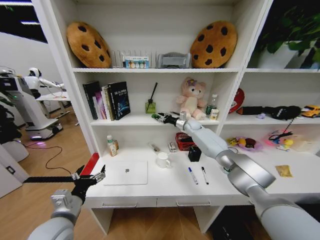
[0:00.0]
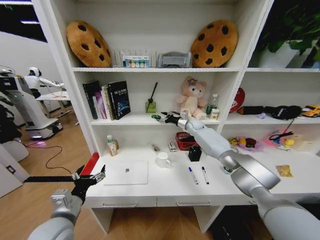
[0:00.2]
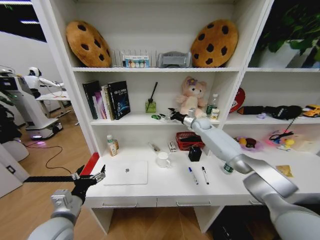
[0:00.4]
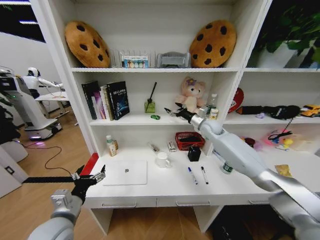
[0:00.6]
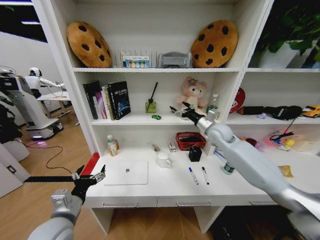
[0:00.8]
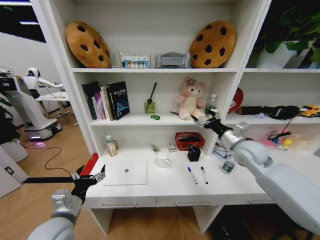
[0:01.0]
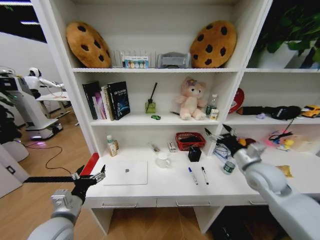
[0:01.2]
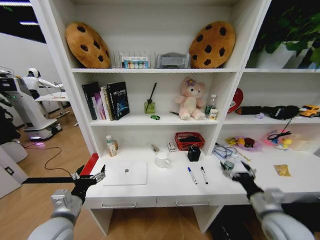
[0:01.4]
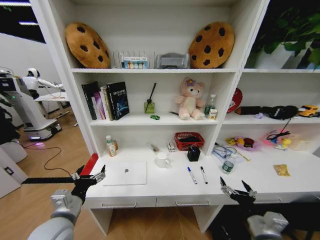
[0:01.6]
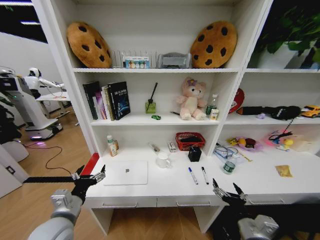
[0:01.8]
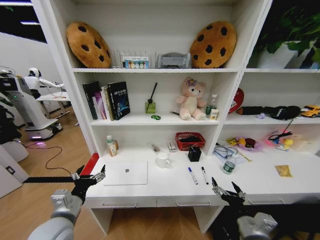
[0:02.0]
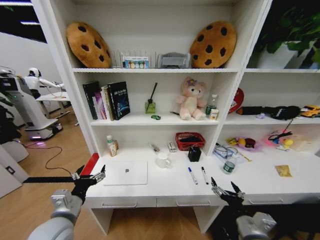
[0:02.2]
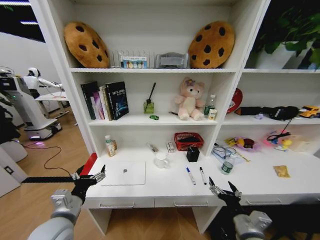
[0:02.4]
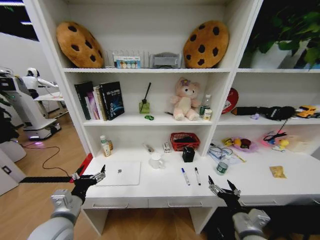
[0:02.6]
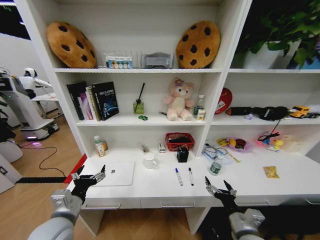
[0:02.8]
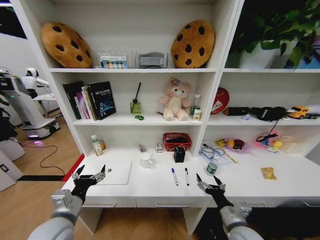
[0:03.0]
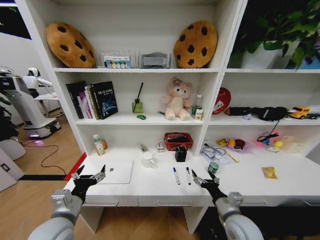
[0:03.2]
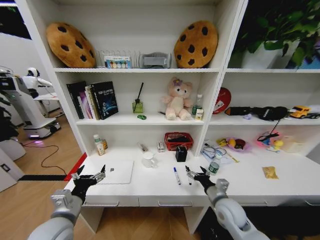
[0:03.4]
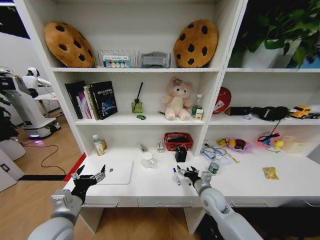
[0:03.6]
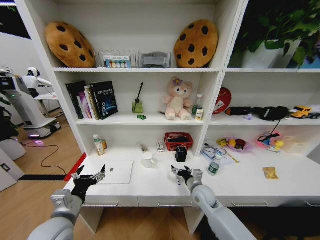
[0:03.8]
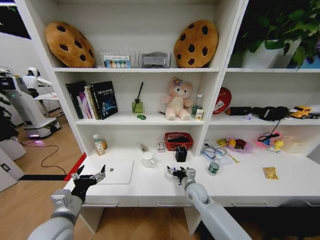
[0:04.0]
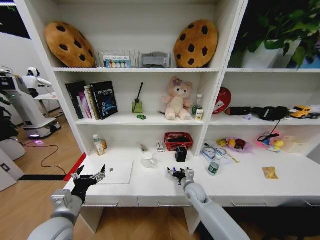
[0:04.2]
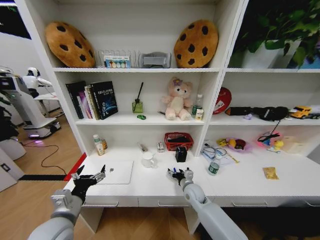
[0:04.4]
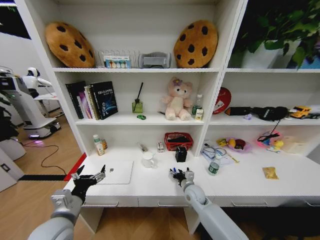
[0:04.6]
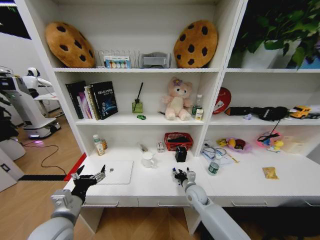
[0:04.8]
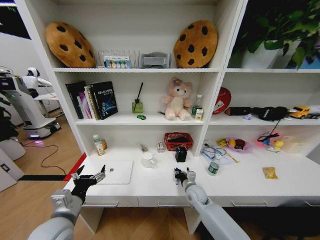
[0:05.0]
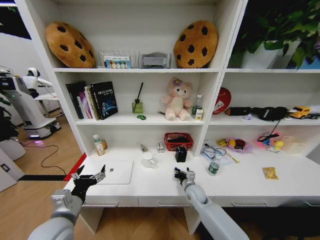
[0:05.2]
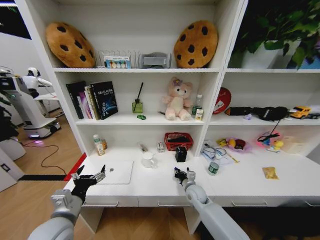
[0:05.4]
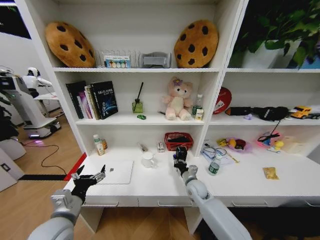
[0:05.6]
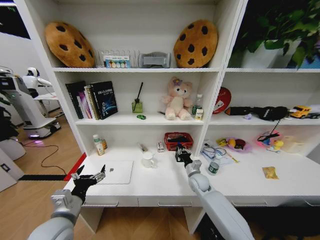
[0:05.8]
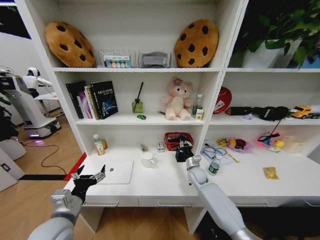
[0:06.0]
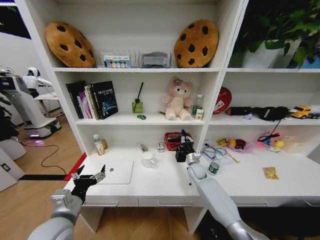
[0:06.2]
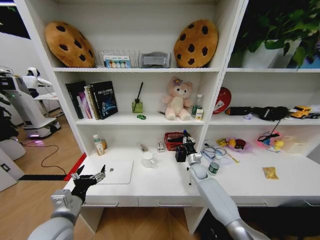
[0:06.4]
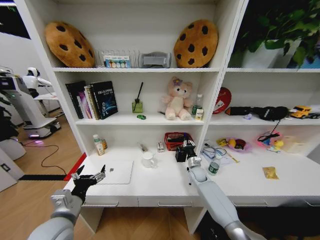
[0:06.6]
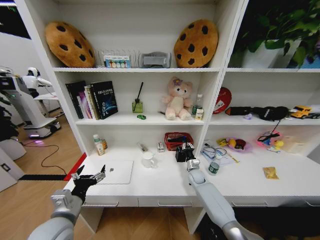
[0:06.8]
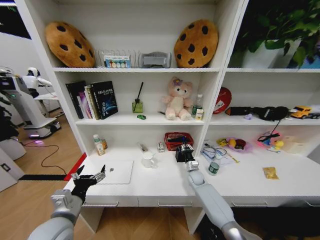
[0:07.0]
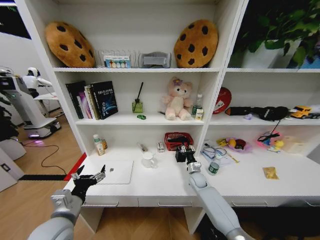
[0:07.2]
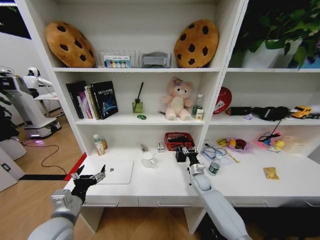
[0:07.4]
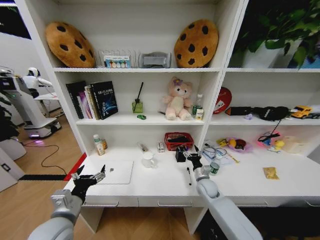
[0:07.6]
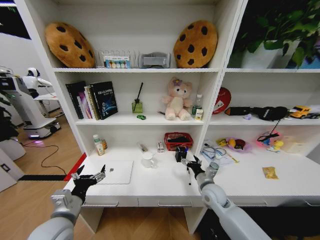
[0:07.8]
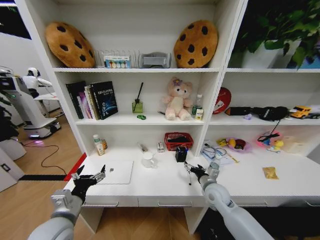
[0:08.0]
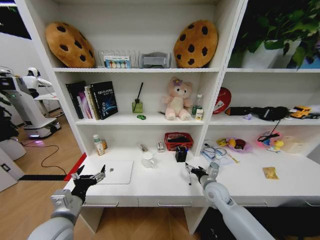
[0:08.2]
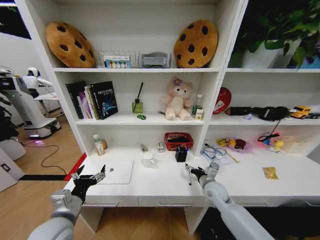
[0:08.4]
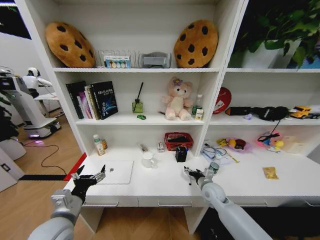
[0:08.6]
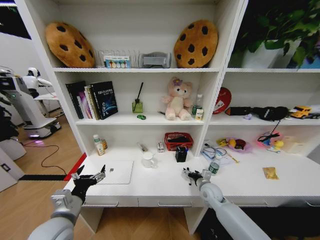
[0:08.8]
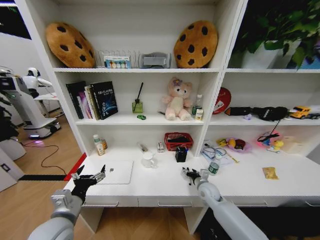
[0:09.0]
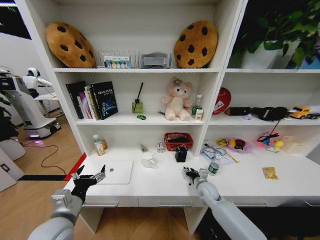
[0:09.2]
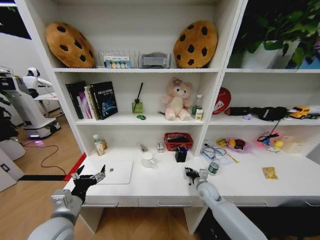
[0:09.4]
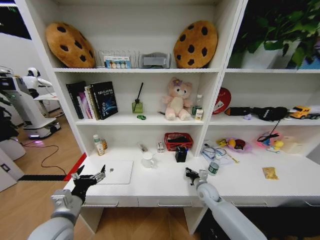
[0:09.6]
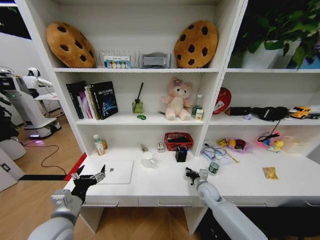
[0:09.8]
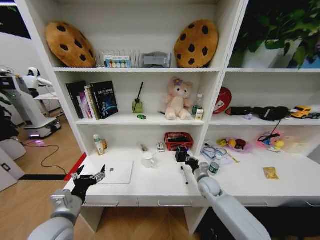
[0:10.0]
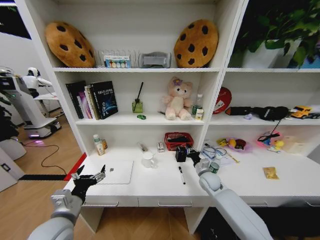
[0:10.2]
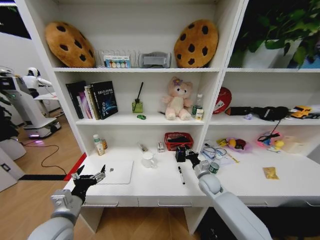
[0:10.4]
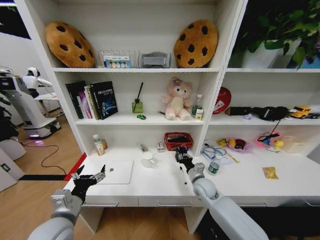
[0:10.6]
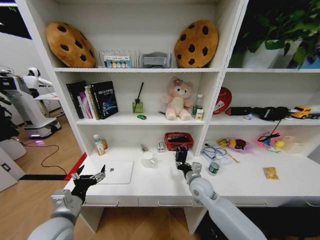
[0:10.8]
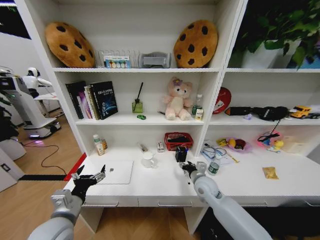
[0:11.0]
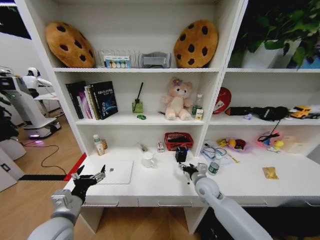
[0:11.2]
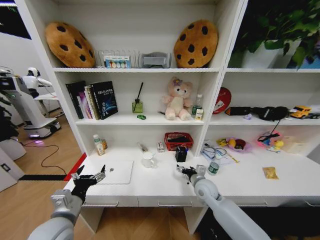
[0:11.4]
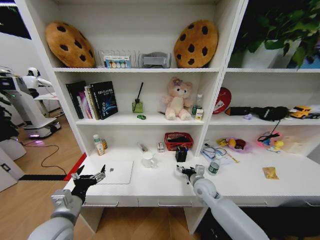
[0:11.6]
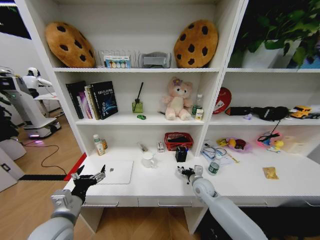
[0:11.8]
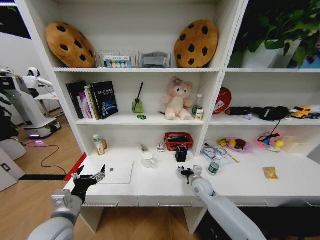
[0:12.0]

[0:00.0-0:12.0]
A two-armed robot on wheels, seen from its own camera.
Task of the whole recording: Organize the objects on the table.
0:00.0 to 0:01.6: The right gripper travels backward by roughly 50 cm, and opens up.
0:01.6 to 0:03.0: The right gripper travels to the left by roughly 5 cm.
0:03.0 to 0:04.4: The right gripper travels forward and to the left by approximately 20 cm.
0:04.4 to 0:06.0: The right gripper goes approximately 10 cm forward, and closes its fingers.
0:06.0 to 0:07.6: The right gripper heads backward, covering roughly 5 cm, and opens up.
0:09.0 to 0:10.4: The right gripper closes.
0:10.4 to 0:12.0: The right gripper opens.

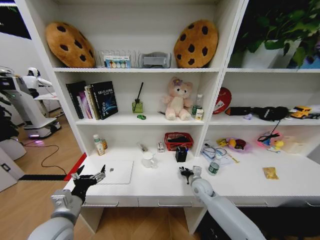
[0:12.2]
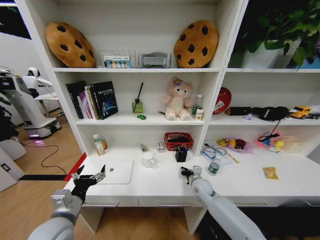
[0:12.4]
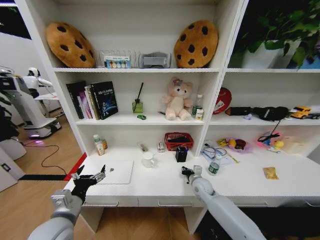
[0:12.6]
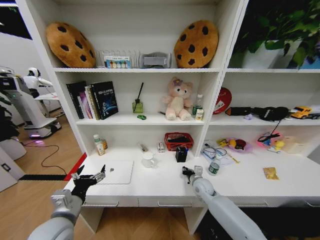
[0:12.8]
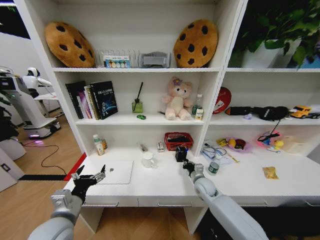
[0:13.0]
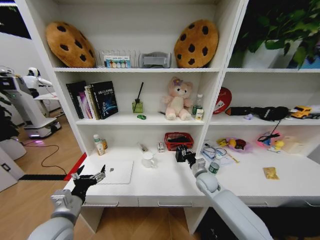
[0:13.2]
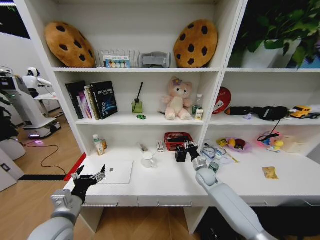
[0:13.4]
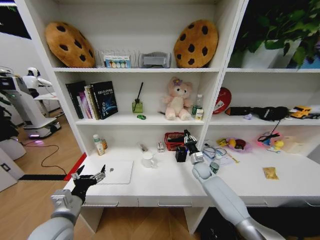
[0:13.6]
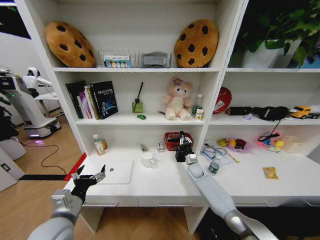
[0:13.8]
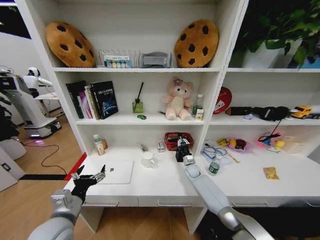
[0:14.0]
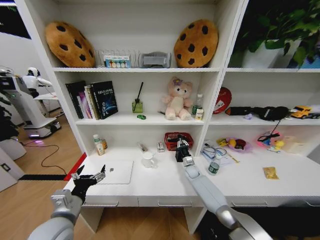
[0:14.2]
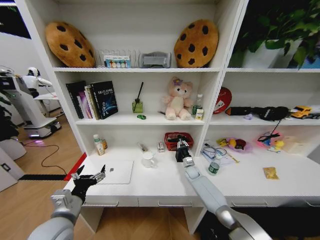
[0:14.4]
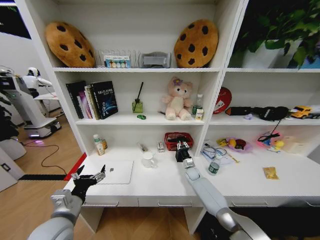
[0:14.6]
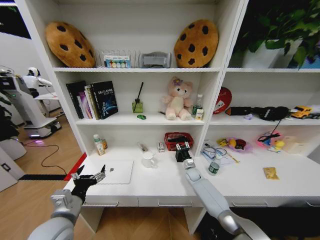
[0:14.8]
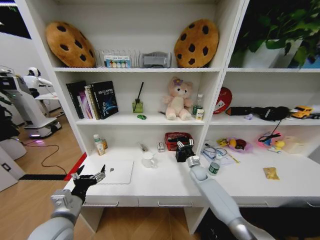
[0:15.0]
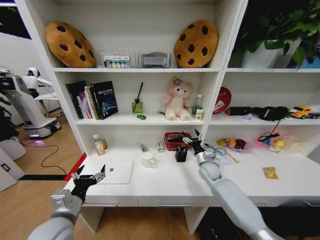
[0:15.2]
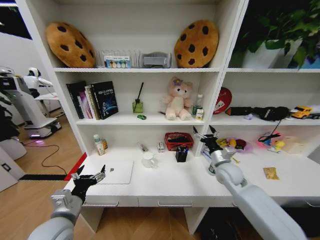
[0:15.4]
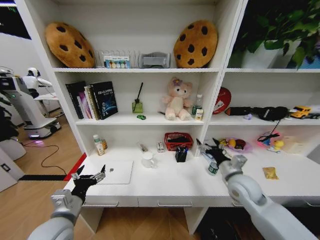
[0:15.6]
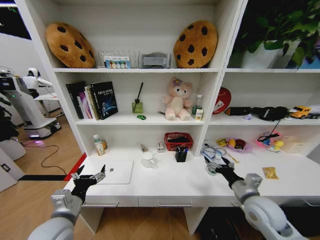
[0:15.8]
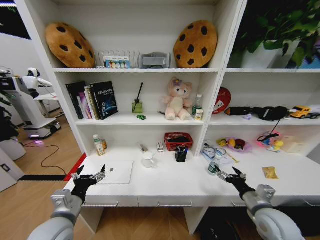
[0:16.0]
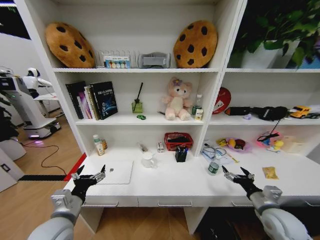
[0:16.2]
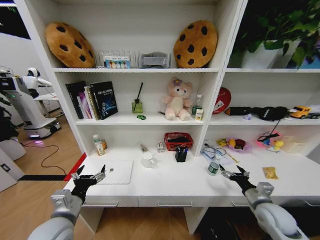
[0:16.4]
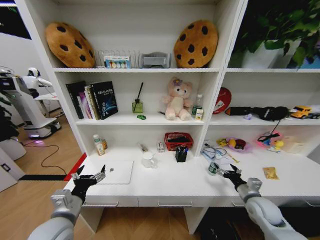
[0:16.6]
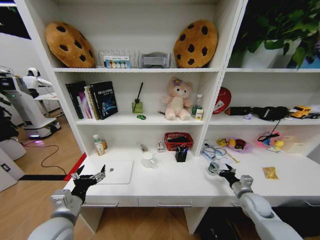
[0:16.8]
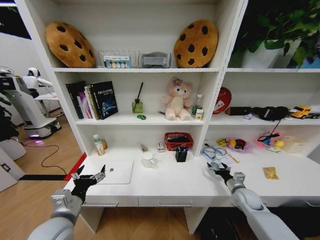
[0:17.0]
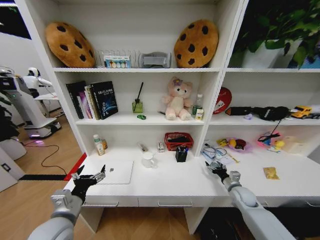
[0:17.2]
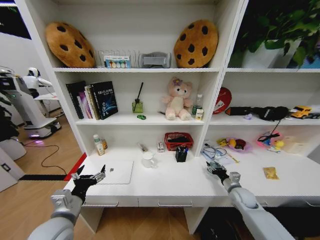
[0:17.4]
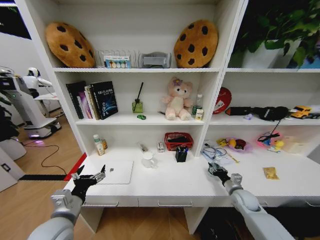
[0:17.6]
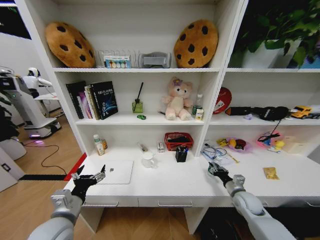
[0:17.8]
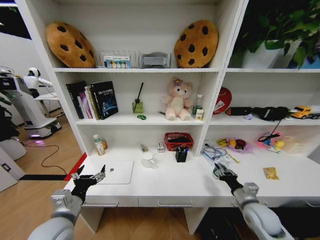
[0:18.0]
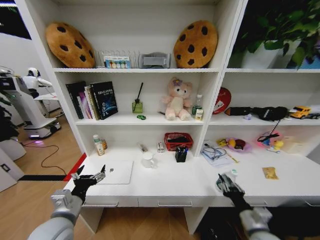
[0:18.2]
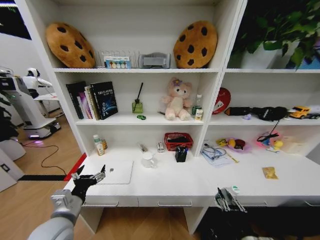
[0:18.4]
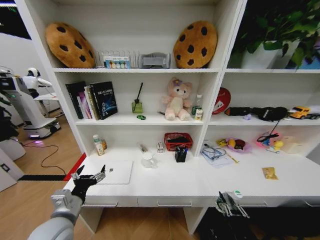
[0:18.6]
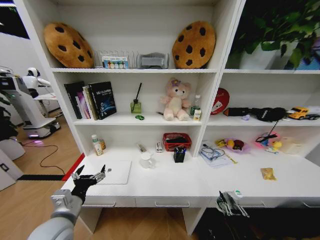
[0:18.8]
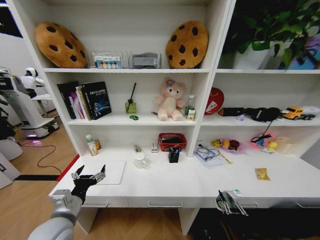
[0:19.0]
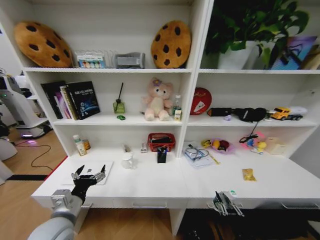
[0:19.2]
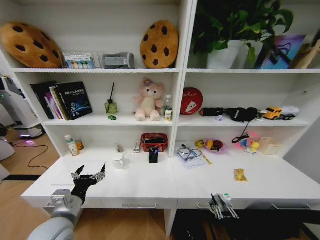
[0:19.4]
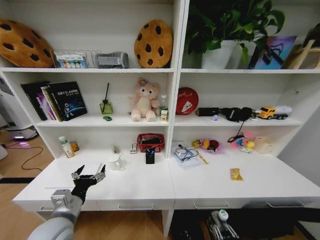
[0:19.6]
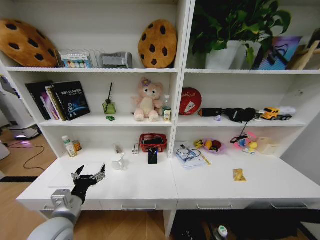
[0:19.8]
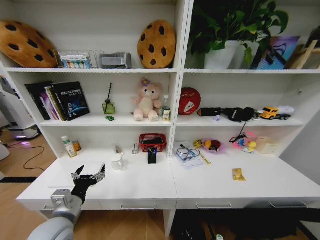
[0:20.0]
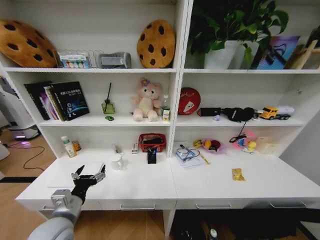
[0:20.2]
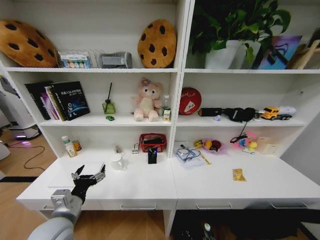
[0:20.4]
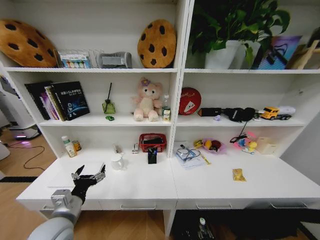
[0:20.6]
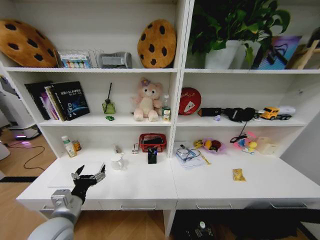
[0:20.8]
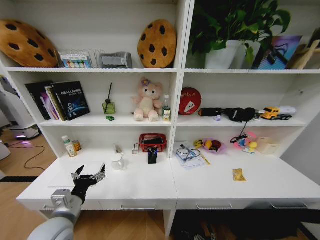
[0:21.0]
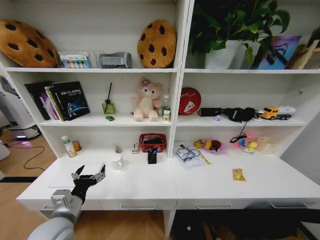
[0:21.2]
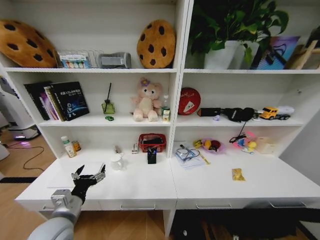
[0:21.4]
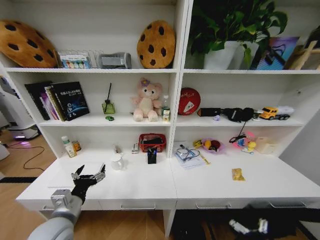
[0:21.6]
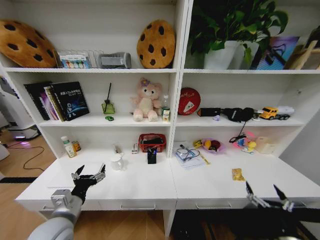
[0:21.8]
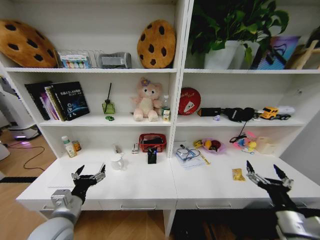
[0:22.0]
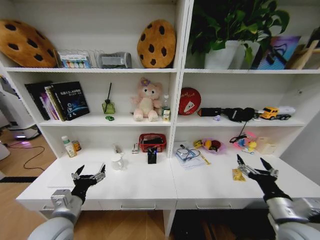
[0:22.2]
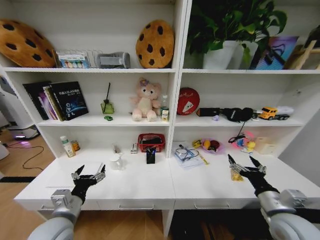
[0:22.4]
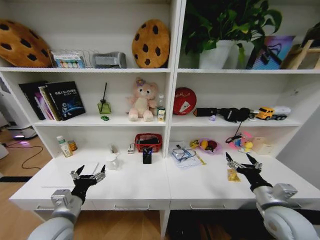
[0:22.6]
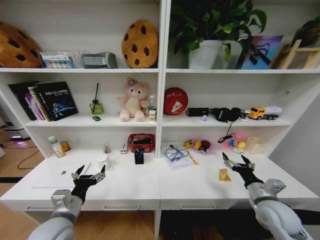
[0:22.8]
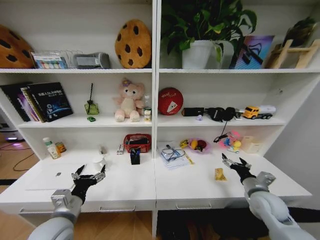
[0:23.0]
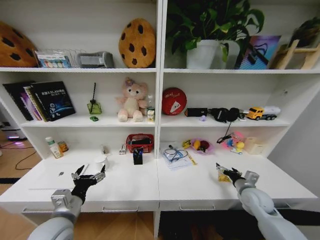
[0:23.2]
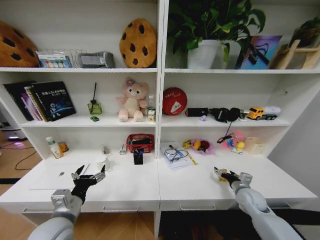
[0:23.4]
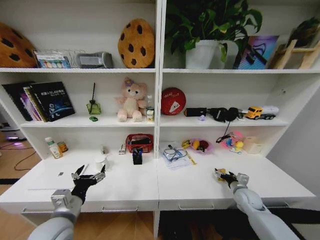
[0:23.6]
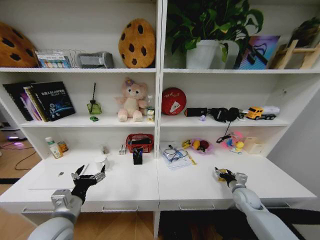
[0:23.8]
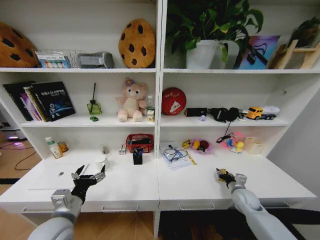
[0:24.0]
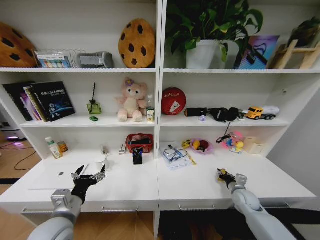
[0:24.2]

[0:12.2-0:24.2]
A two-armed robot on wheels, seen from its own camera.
Task of the whole recording: Organize the objects on the table.
0:12.2 to 0:13.8: The right gripper is displaced forward by about 10 cm, and closes its fingers.
0:13.8 to 0:15.2: The right gripper travels upward and backward by some 10 cm, and opens up.
0:15.2 to 0:16.6: The right gripper shifts approximately 20 cm backward and to the right.
0:16.6 to 0:18.2: The right gripper travels backward and to the left by about 15 cm, and closes up.
0:18.2 to 0:19.8: The right gripper heads backward and downward, covering roughly 20 cm.
0:19.8 to 0:21.2: The right gripper moves downward, some 20 cm, and opens up.
0:21.2 to 0:22.6: The right gripper heads upward, covering approximately 40 cm.
0:22.6 to 0:24.2: The right gripper is displaced downward and forward by roughly 20 cm, and closes up.
